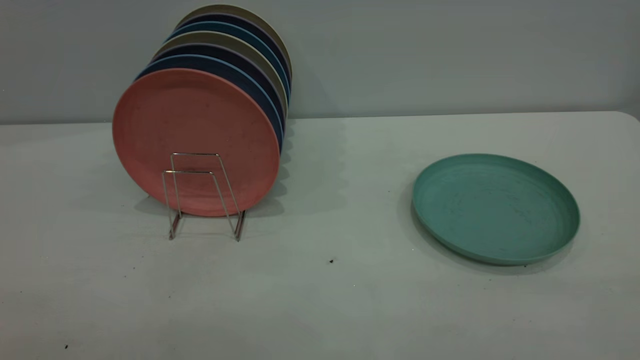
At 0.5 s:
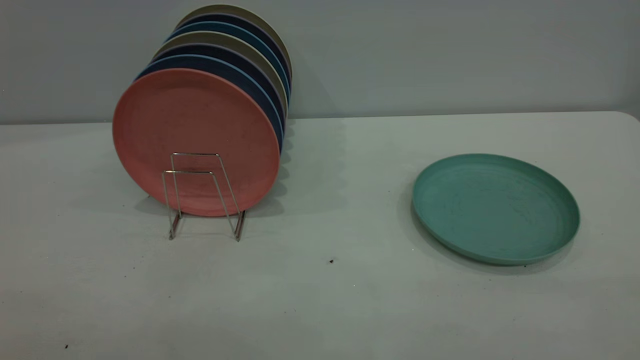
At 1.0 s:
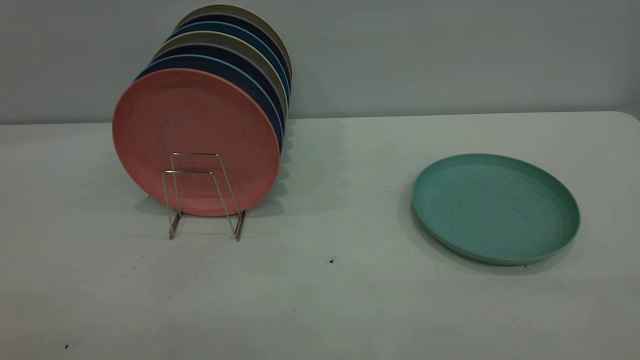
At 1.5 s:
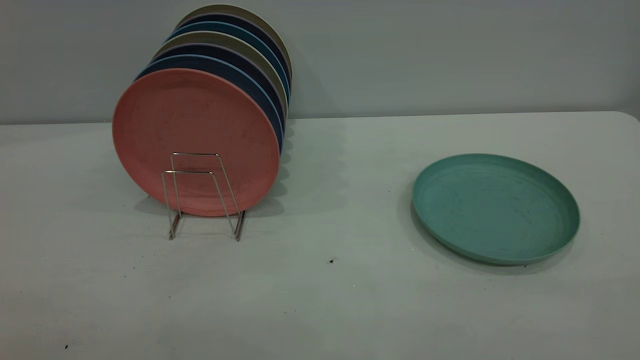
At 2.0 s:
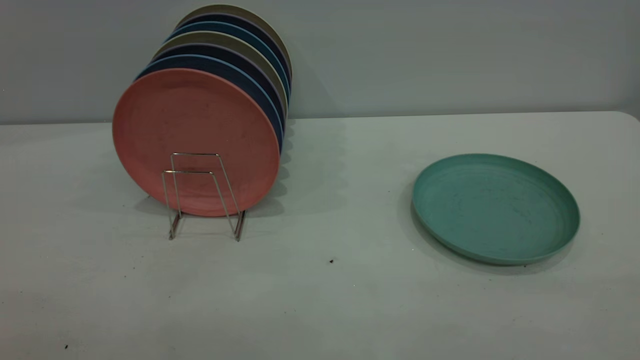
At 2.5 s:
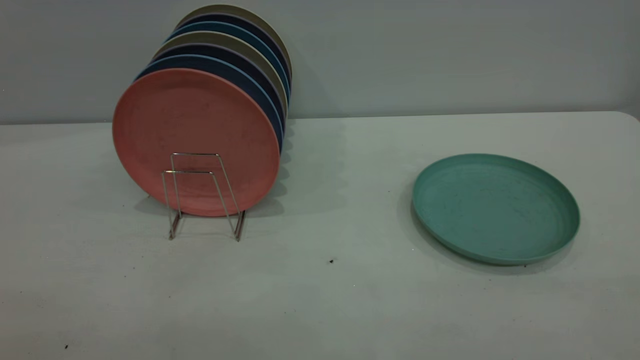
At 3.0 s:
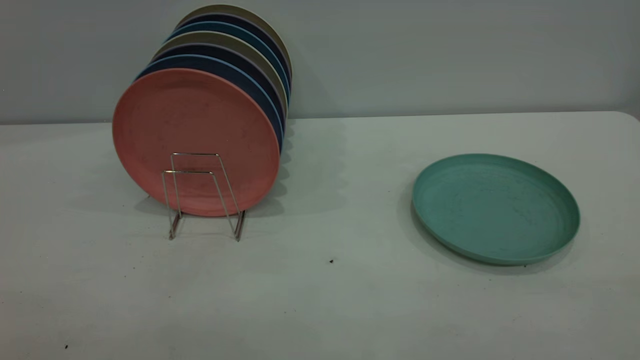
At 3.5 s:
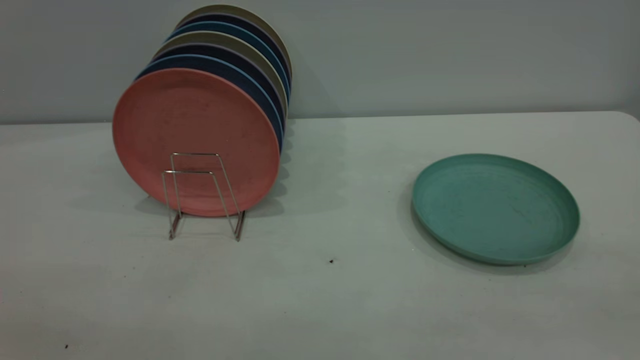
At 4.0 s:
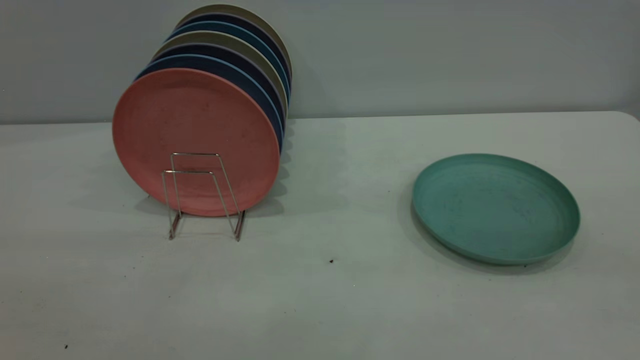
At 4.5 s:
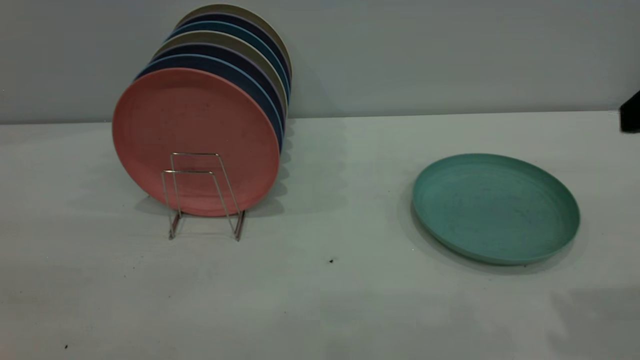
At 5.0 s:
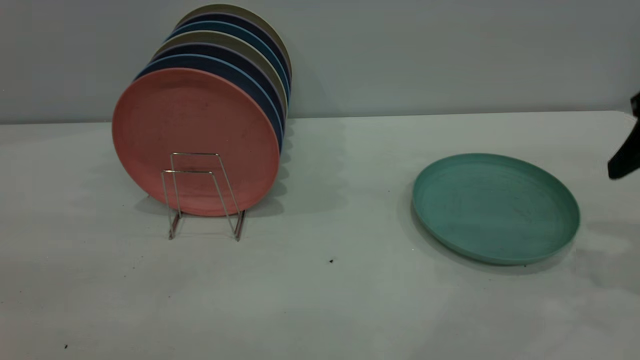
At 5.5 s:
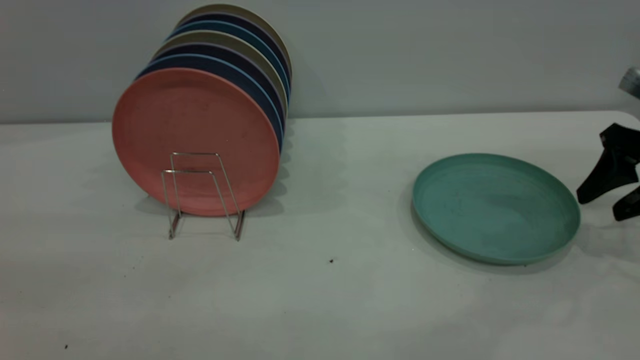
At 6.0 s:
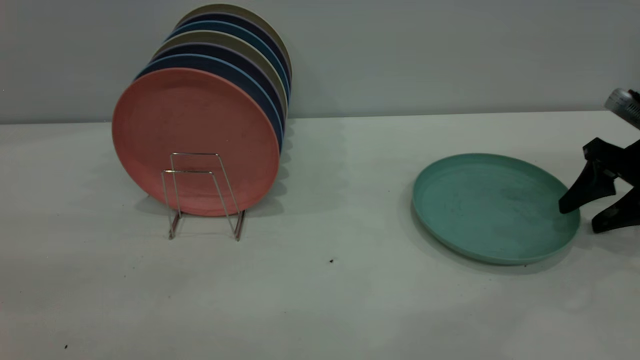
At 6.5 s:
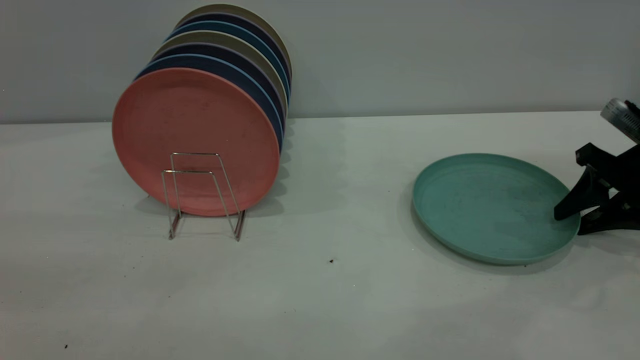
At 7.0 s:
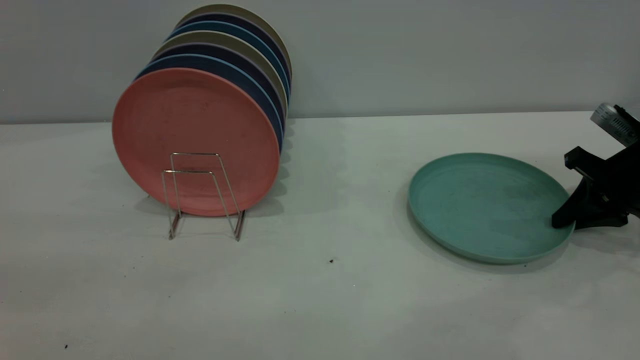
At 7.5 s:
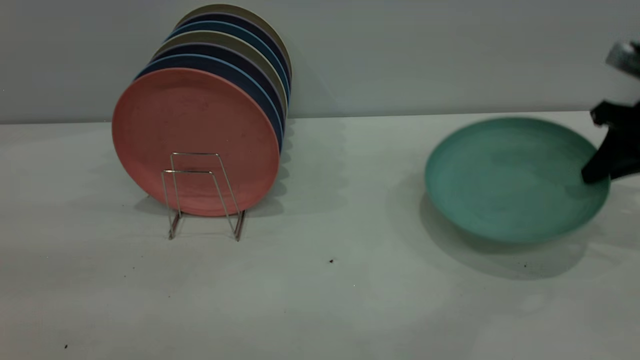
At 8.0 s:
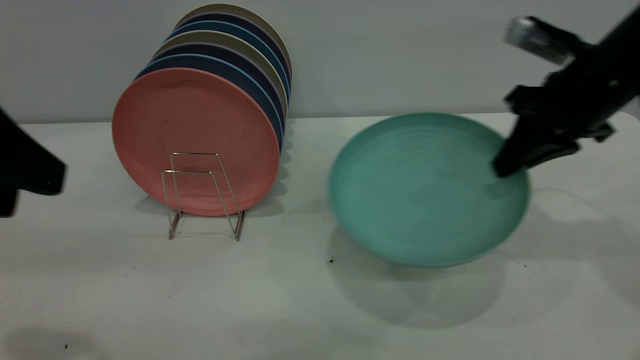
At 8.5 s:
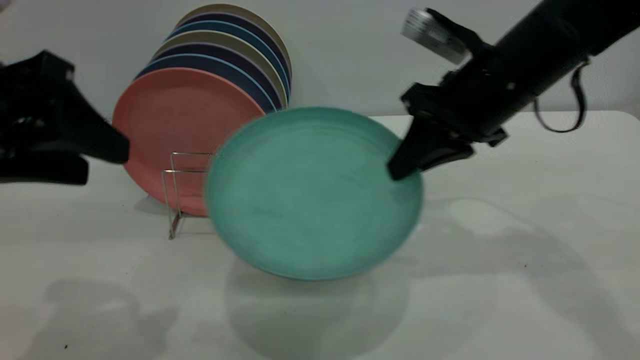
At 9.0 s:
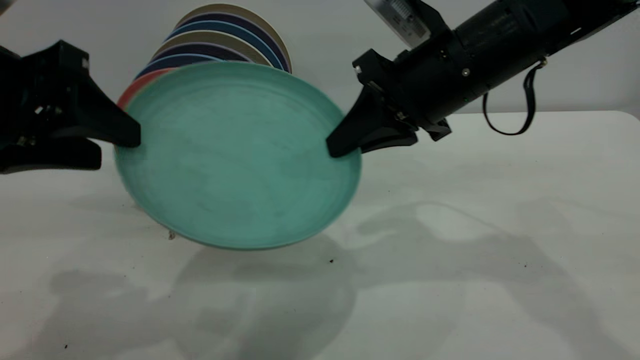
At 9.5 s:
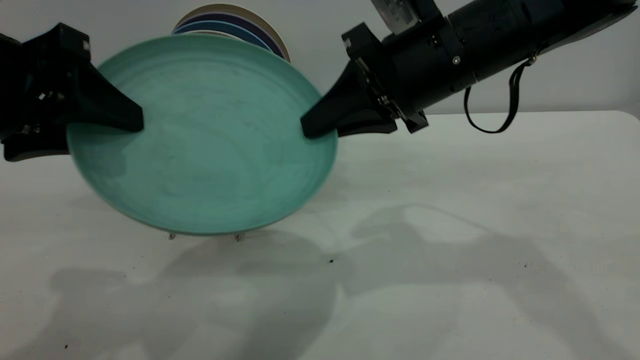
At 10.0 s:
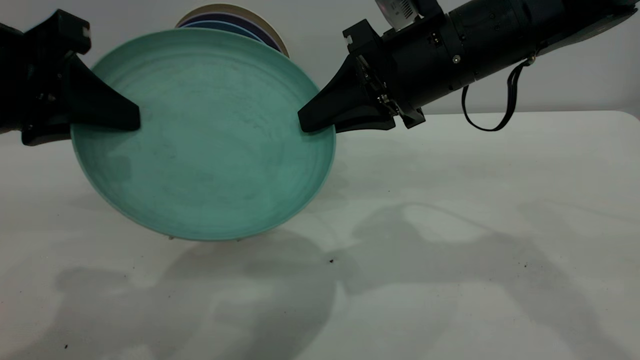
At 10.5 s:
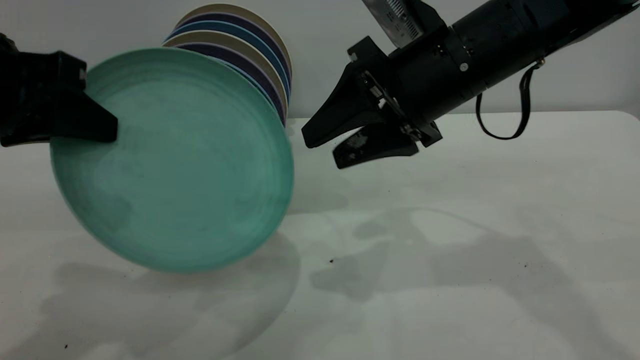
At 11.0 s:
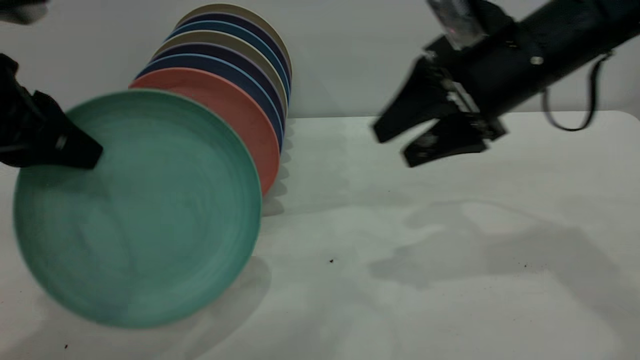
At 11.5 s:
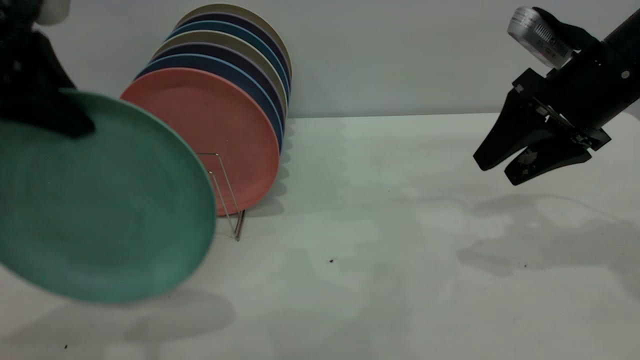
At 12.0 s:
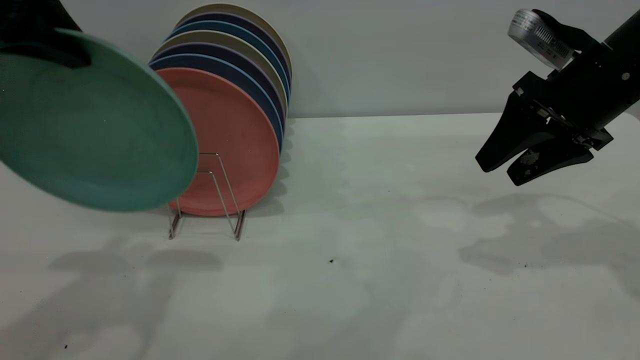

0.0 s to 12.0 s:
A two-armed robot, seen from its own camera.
Task of the whole recording: the right gripper grasp the green plate, the right gripper pass the green plate to the left gripper, and the left gripper place the green plate on the plate rack.
Step, 0.0 to 7.5 s: Pick up the plate with the right gripper.
Step, 8.0 to 10.0 s: Pass the plate from the right gripper to the left gripper.
0.0 to 2.0 s: Both grippers stay put.
4.0 to 6.0 s: The right gripper goes approximately 35 cm forward and downward.
6.0 to 8.0 s: The right gripper shifts about 15 cm to the left and upward, and closes. The left gripper heads forward and downward, covering some 10 cm.
8.0 to 10.0 s: The left gripper is displaced forward by about 5 cm, and closes. Meanwhile the right gripper goes approximately 15 cm to the left.
10.0 to 12.0 s: The right gripper is displaced to the right by some 15 cm, and opens. The left gripper is displaced upward and forward by approximately 10 cm.

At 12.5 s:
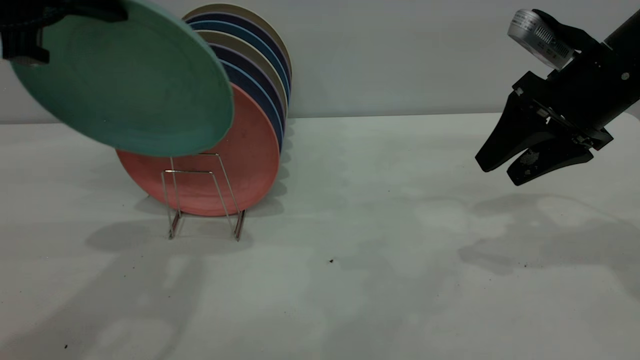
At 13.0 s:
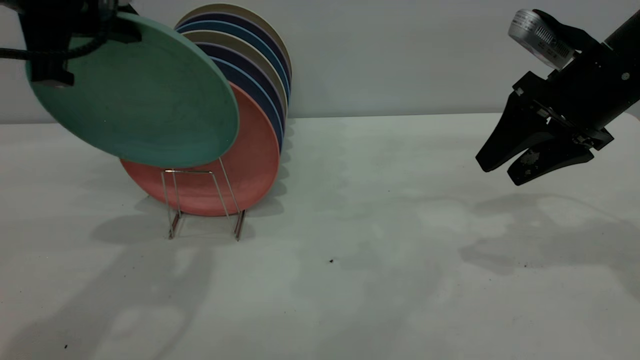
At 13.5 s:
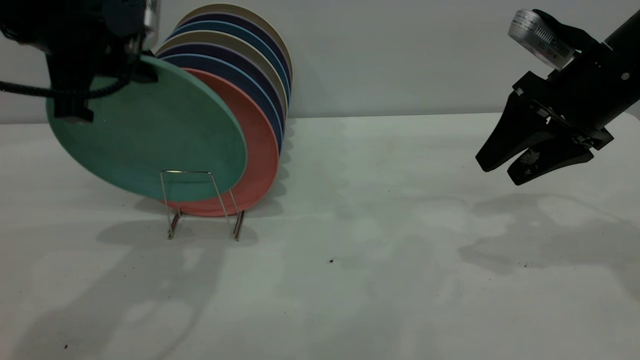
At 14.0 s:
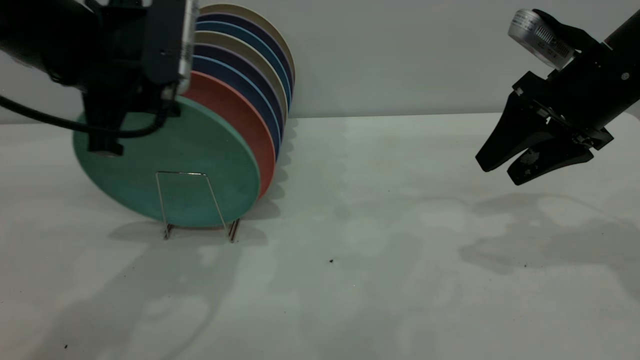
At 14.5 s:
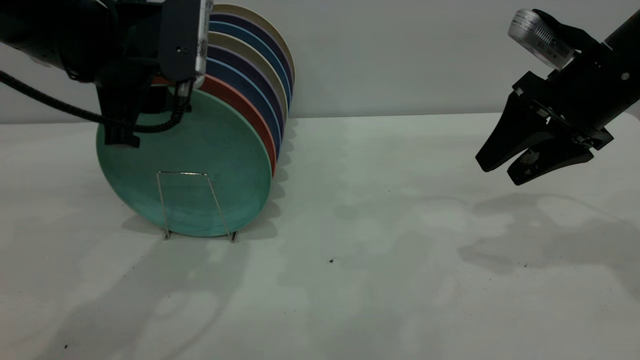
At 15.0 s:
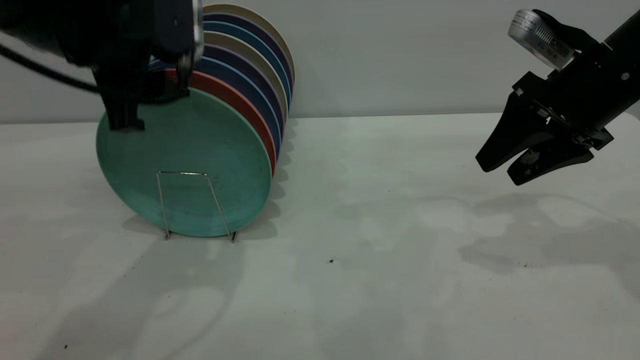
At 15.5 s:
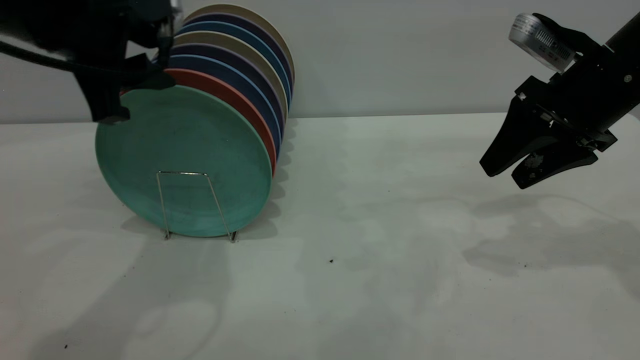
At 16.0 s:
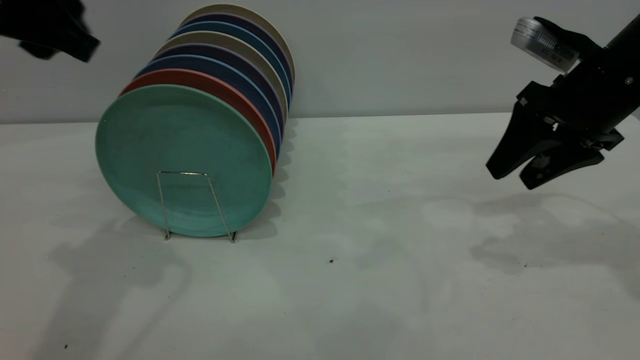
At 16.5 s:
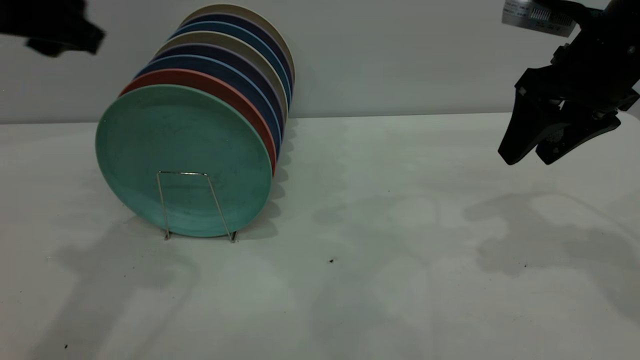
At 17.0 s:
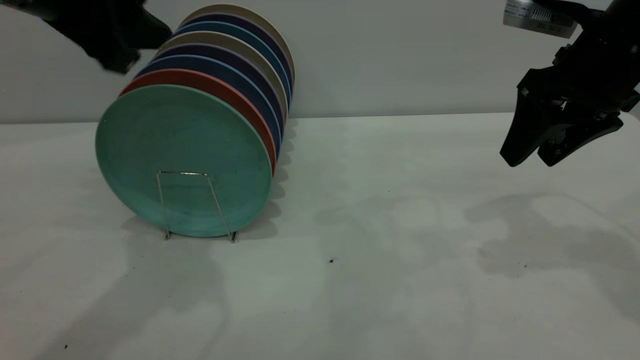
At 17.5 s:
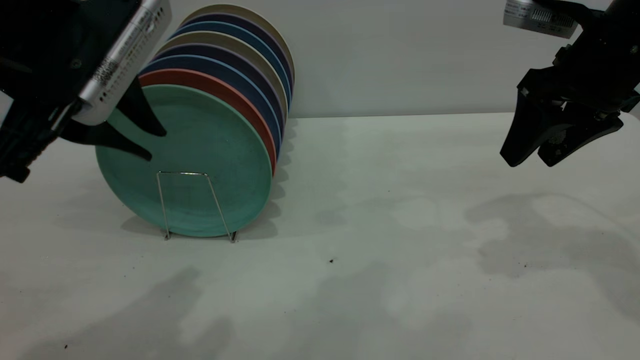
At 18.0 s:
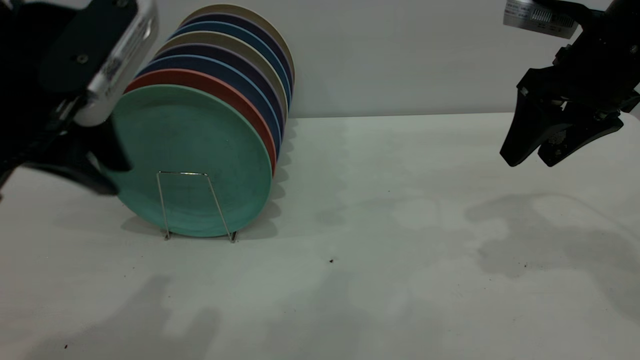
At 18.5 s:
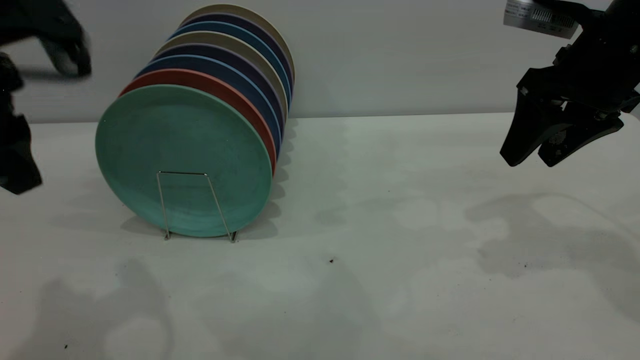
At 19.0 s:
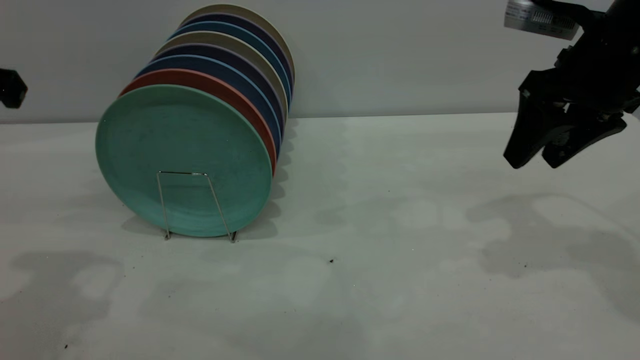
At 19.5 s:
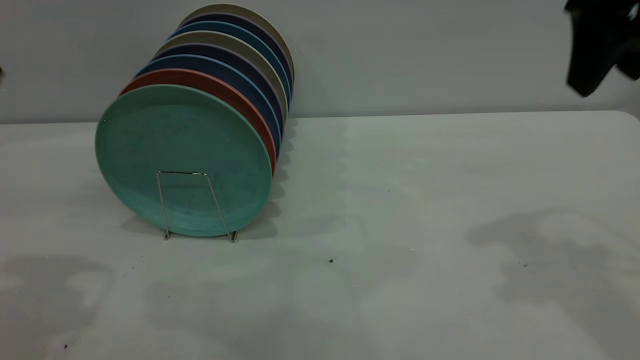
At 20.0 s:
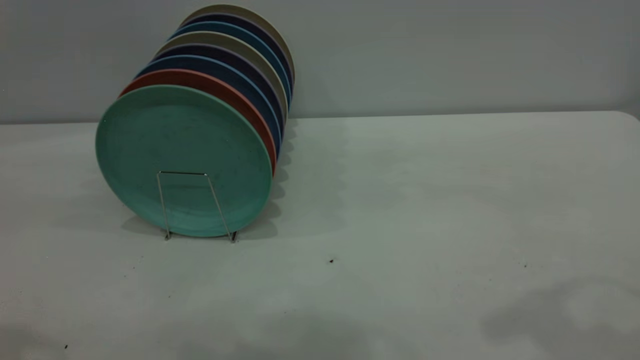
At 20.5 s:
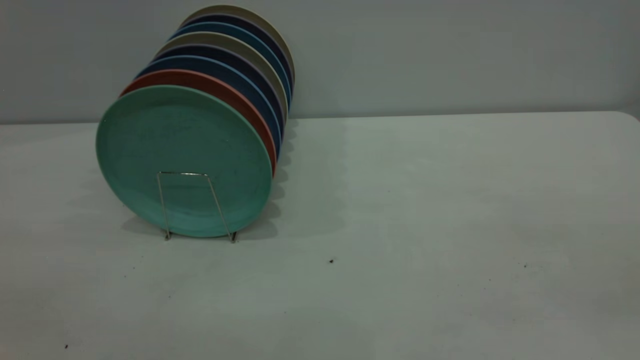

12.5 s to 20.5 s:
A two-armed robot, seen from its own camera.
Task of the whole recording: the right gripper grasp the green plate, the right gripper pass the green plate to the left gripper, and the left gripper place the green plate on the plate rack.
Step, 12.5 to 15.5 s: Place the plate on the shelf.
12.5 to 14.5 s: The left gripper travels downward by some 10 cm, and opens up.
14.5 to 16.5 s: The left gripper moves about 10 cm.
16.5 to 18.5 s: The left gripper closes.
18.5 to 20.5 s: The grippers both shift backward and upward by about 30 cm. The left gripper opens up.
